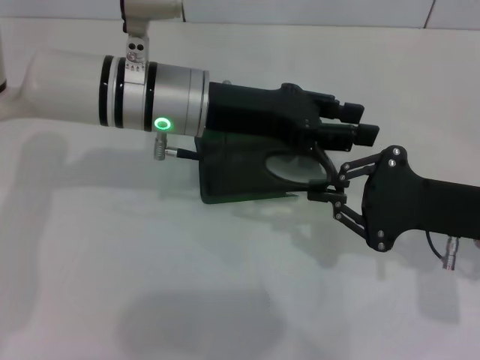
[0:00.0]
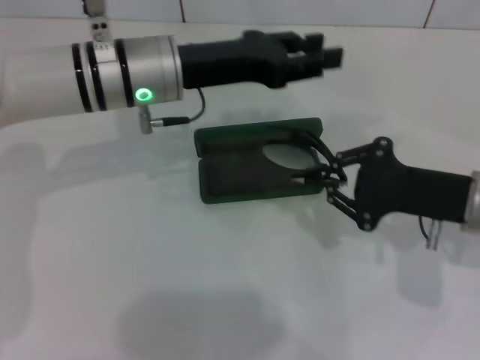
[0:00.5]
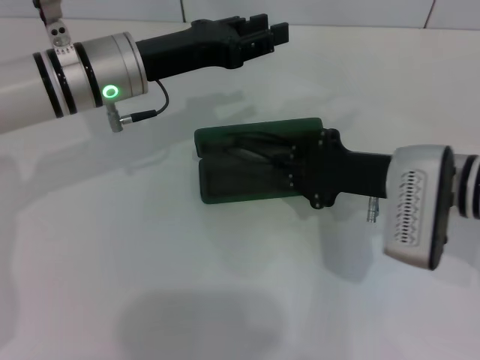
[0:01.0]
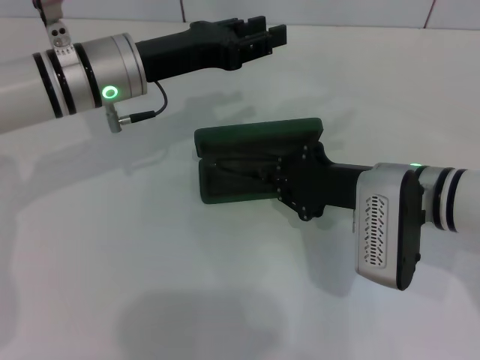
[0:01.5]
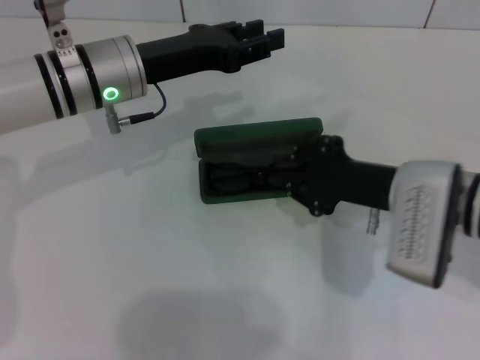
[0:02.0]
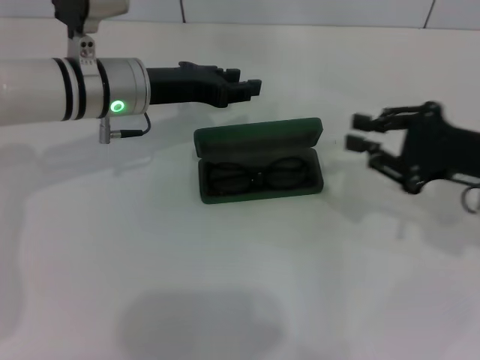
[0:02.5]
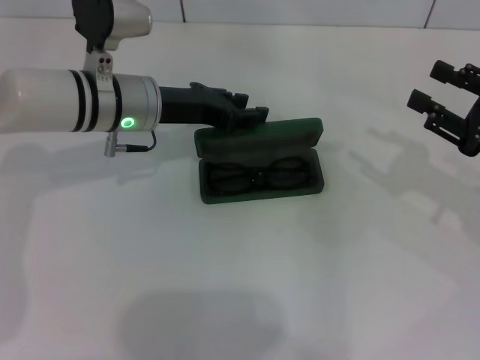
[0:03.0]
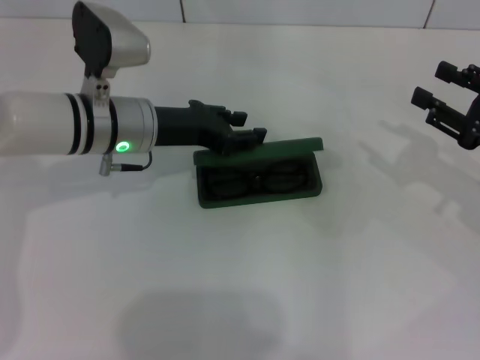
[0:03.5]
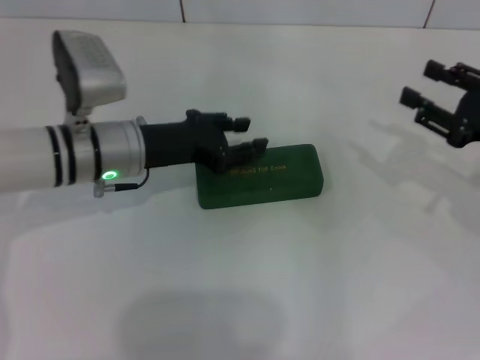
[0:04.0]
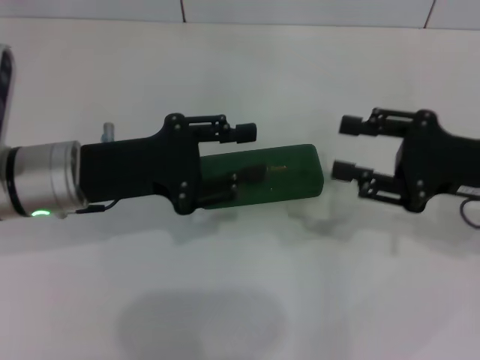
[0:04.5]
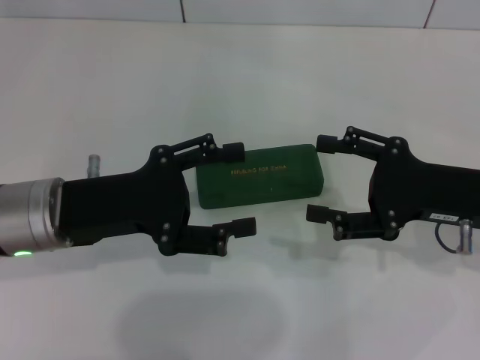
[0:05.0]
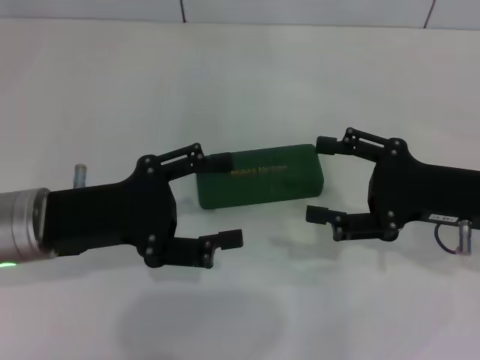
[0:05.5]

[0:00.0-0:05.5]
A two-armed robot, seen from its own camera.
Step, 0:00.5 to 0:01.5: Put the glasses into the case with your right hand.
Step, 0:02.0 to 0:03.5: Close the glasses case with your left hand.
0:00.0 to 0:02.0: The grippers both shift to the left by some 5 cm.
0:02.0 to 0:03.5: The right gripper heads to the right, covering roughly 15 cm, and opens up.
0:03.5 to 0:05.5: The right gripper heads to the left, covering approximately 10 cm, and opens up; the left gripper is displaced backward and to the left by some 15 cm, and opens its fingers.
